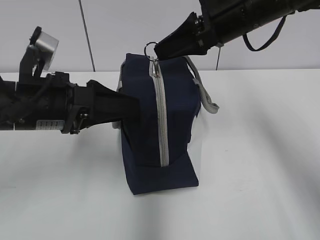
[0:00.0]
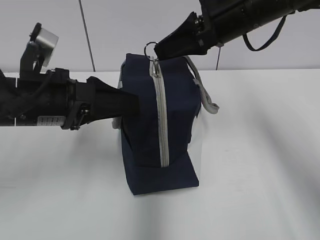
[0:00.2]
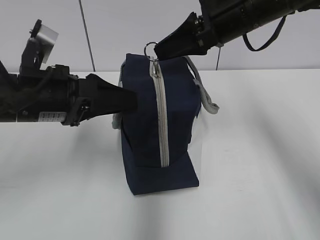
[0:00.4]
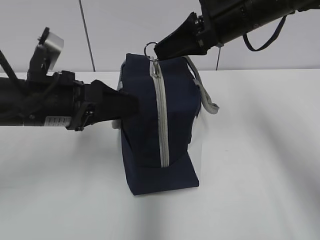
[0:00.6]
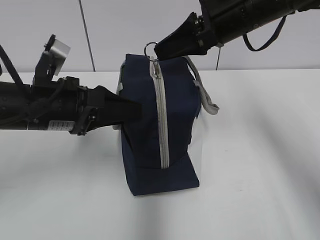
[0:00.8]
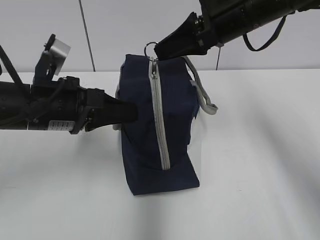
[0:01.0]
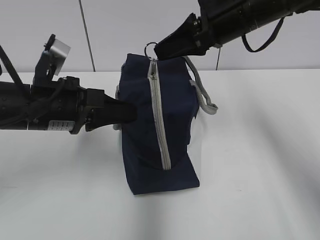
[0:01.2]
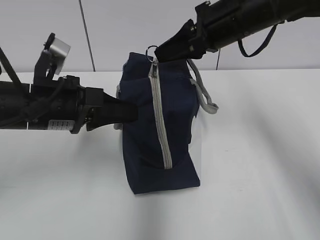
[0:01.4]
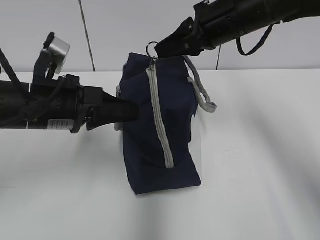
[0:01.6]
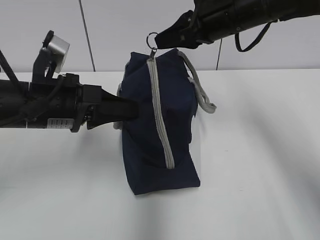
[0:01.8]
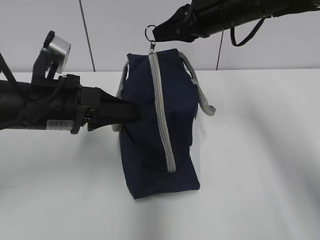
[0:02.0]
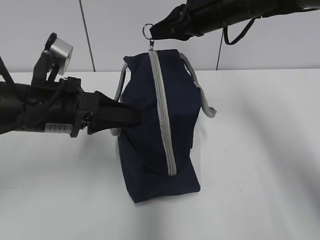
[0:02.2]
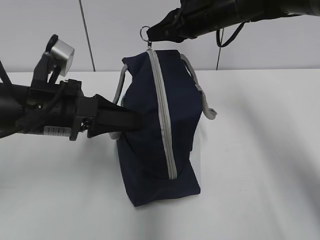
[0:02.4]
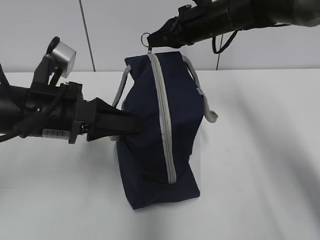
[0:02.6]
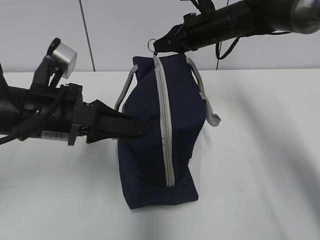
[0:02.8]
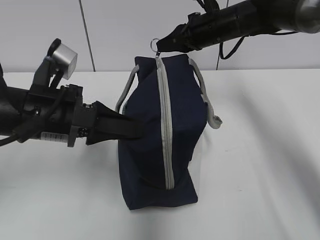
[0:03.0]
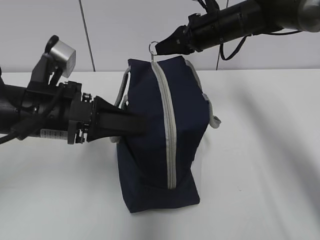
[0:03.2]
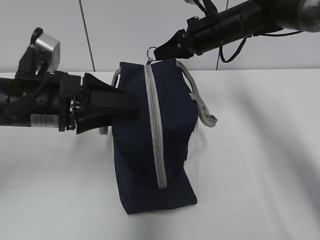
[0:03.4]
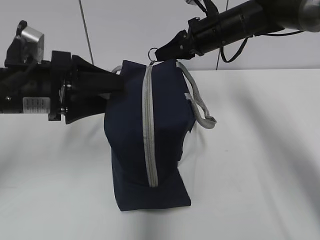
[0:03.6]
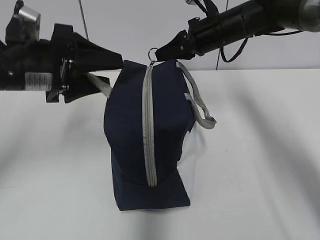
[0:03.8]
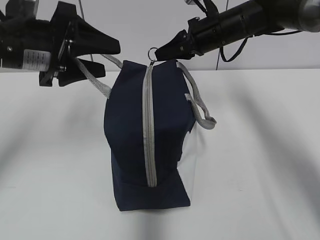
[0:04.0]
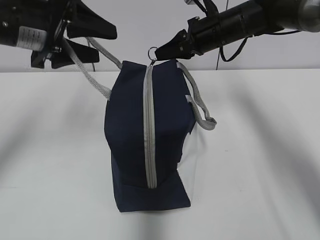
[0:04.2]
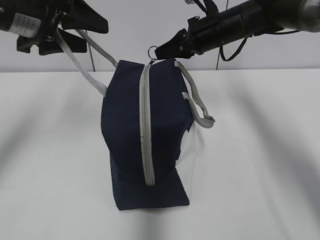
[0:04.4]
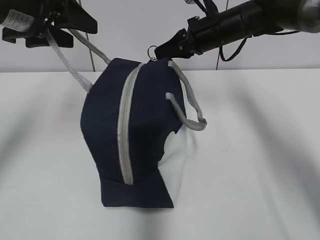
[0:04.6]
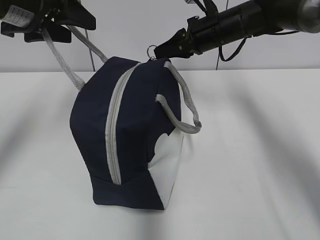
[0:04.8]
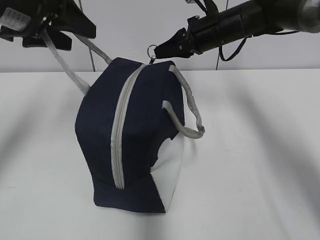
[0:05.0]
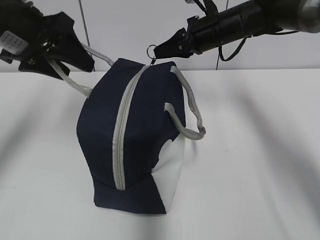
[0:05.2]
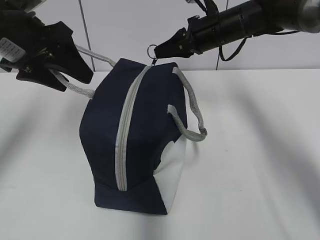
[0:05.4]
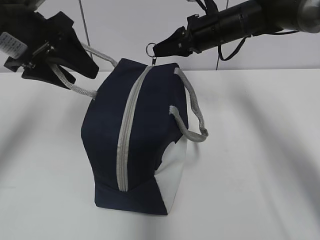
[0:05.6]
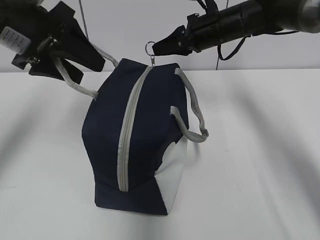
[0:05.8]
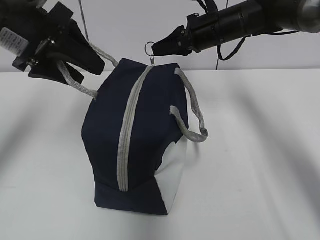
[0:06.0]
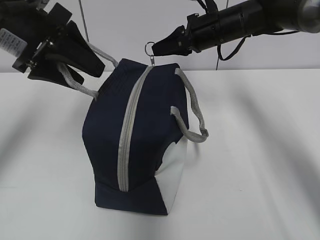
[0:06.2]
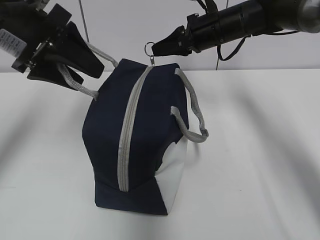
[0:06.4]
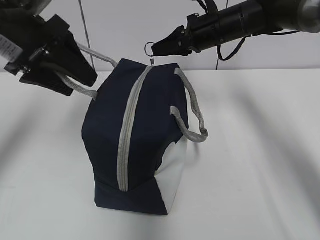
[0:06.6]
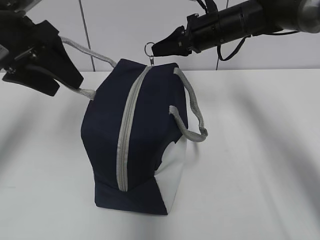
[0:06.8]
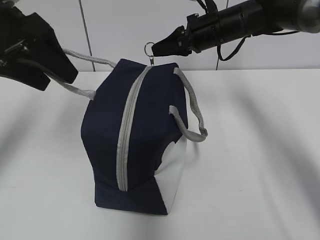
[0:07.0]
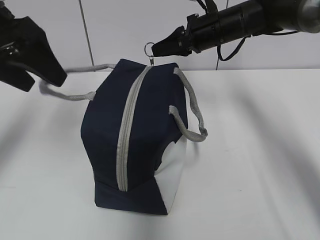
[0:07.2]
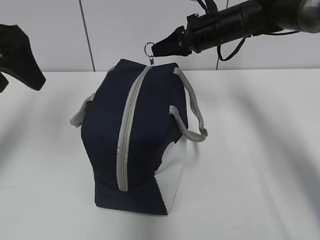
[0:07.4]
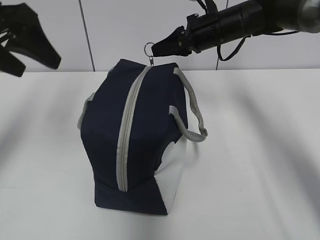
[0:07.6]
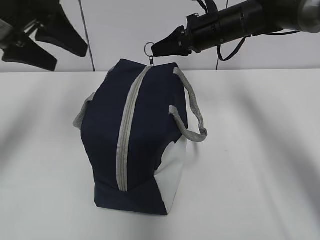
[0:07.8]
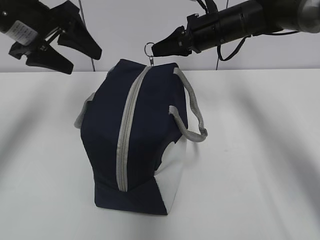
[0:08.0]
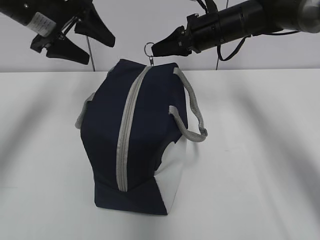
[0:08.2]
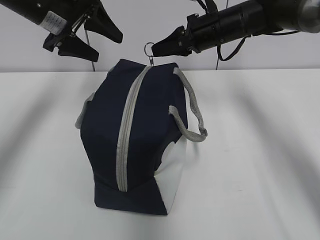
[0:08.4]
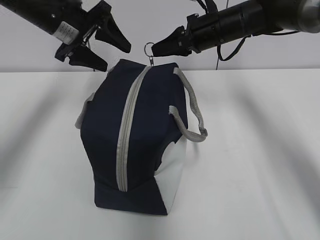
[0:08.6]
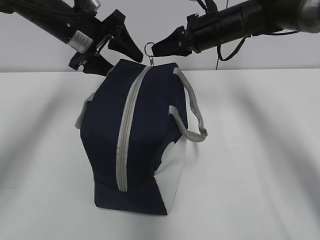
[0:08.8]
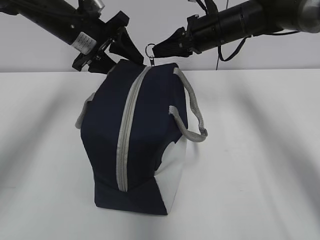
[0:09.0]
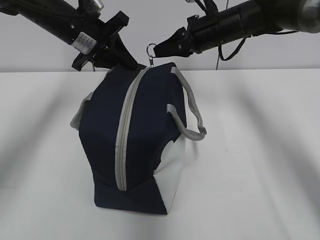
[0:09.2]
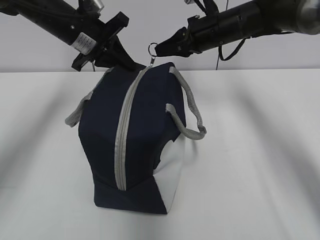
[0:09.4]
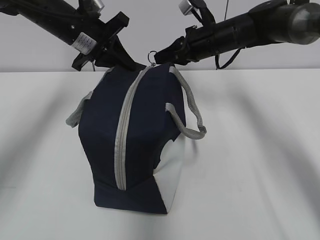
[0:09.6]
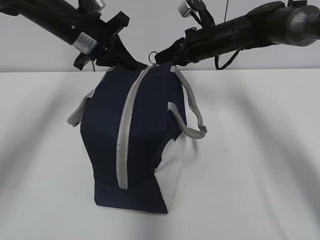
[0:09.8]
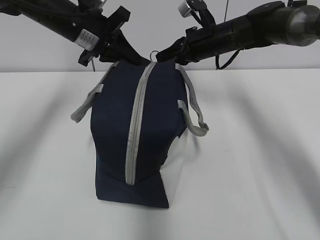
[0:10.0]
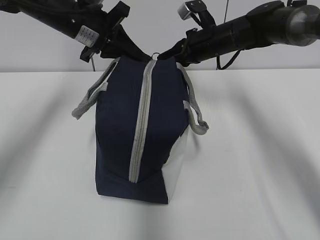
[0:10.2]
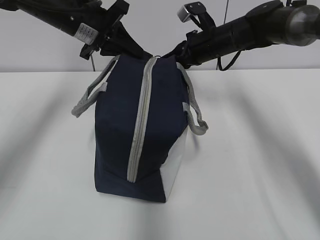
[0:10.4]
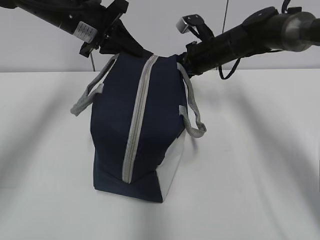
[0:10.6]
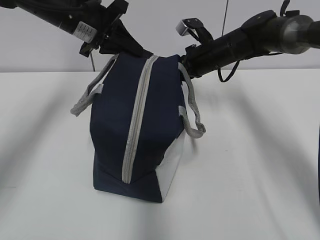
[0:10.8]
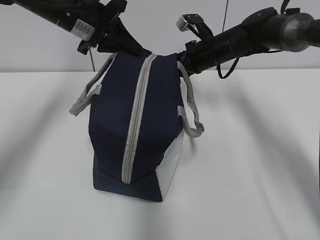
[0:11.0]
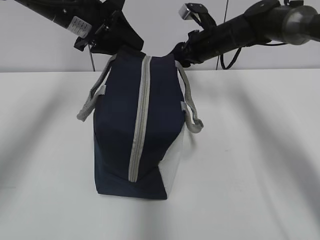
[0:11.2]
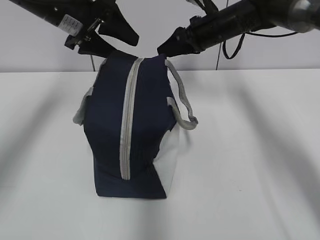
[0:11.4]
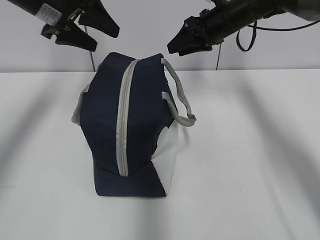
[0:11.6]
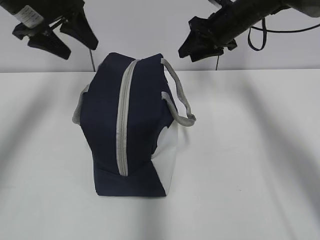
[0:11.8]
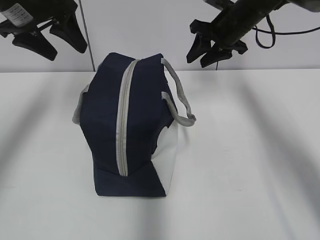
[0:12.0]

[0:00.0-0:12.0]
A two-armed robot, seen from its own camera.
0:00.0 to 0:01.6: The left gripper closes.
0:01.6 to 0:03.0: The right gripper heads forward and downward, covering about 10 cm.
0:03.0 to 0:04.4: The left gripper is displaced upward and forward by approximately 15 cm, and opens.
0:06.0 to 0:07.6: The left gripper moves about 5 cm.
0:07.6 to 0:09.0: The left gripper goes some 20 cm forward, to the right and downward.
0:09.0 to 0:10.4: The left gripper closes.
0:10.4 to 0:12.0: The left gripper moves to the left, approximately 10 cm, and opens up, while the right gripper ends up about 5 cm from where it was, and opens.

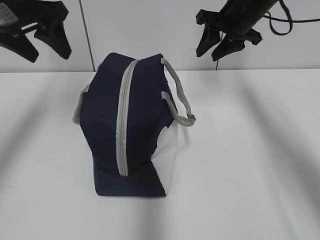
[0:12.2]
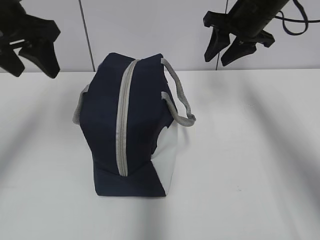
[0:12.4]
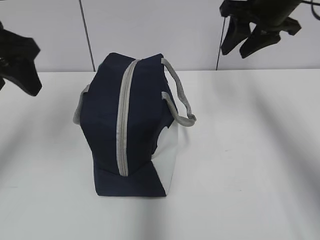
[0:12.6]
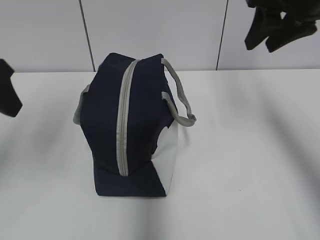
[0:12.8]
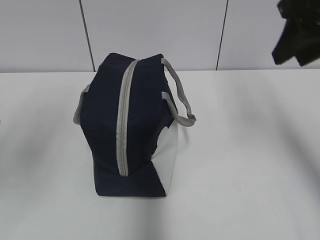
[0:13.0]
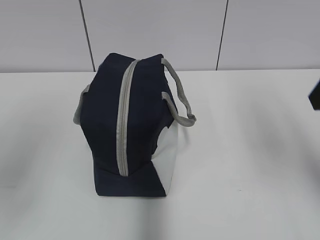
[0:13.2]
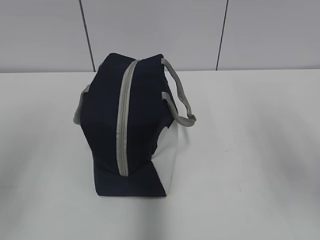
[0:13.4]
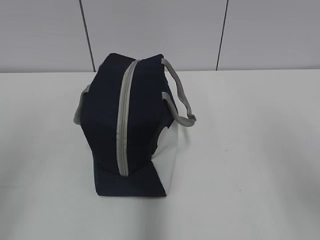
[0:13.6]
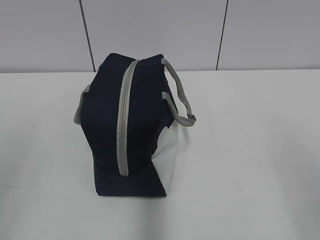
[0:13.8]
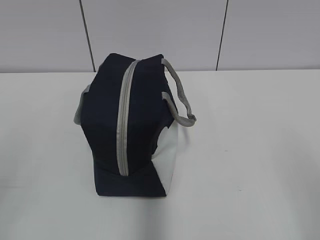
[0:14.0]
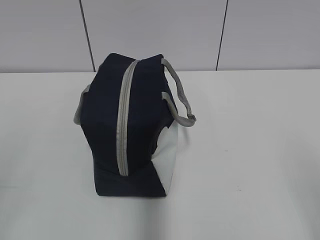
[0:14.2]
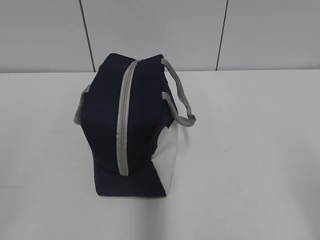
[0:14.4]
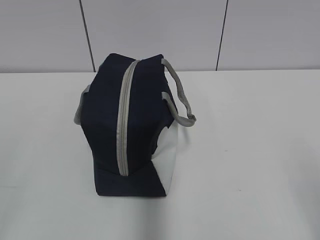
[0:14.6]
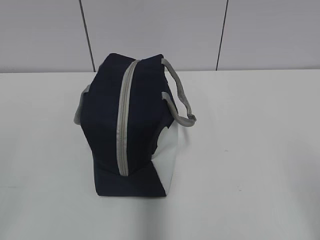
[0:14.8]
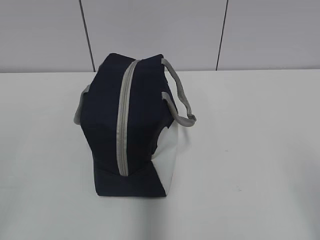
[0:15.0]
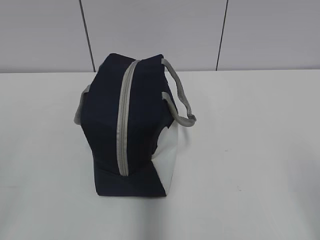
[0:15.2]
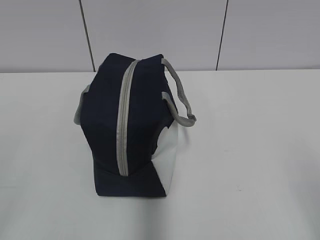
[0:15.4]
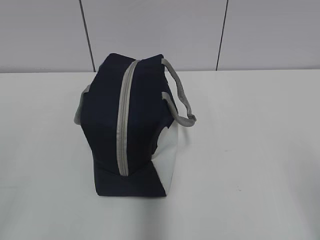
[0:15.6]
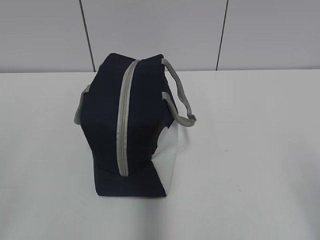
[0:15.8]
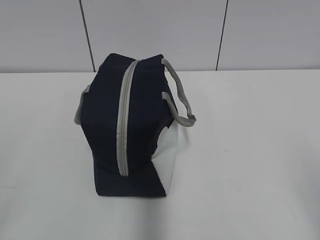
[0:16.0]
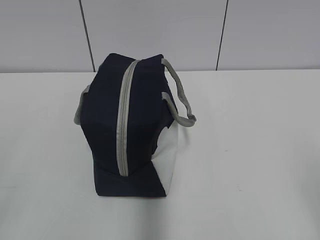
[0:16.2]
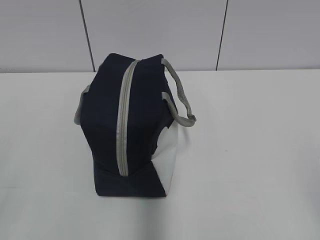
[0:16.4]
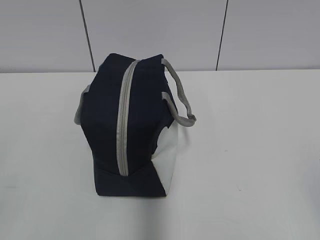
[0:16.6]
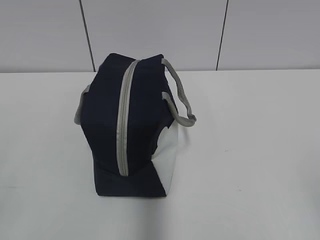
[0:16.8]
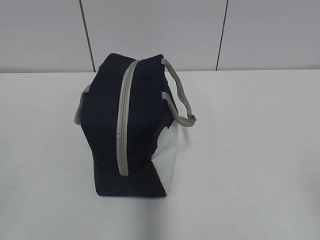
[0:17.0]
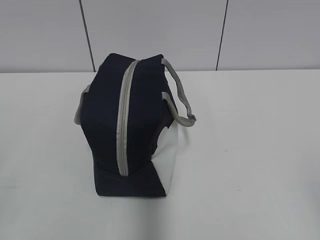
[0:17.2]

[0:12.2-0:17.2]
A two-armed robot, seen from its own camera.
0:12.2 to 0:13.8: Both grippers travel together backward, about 35 cm.

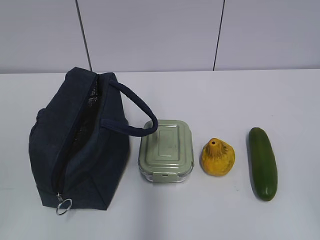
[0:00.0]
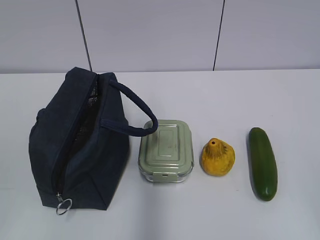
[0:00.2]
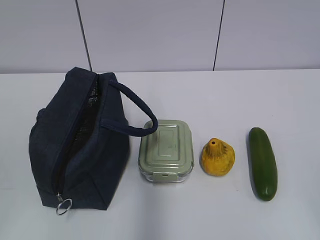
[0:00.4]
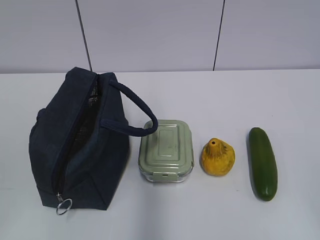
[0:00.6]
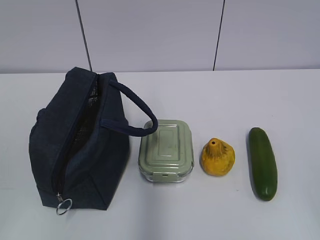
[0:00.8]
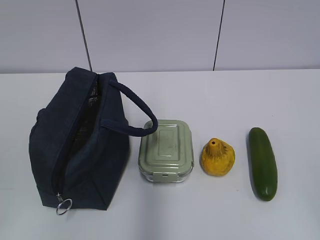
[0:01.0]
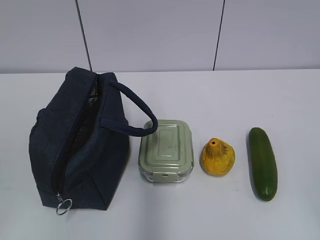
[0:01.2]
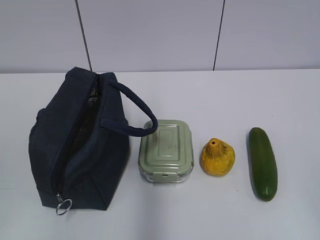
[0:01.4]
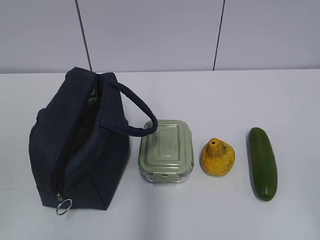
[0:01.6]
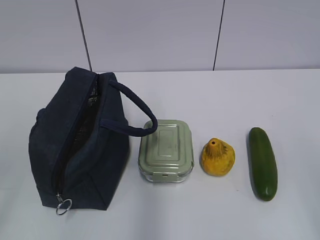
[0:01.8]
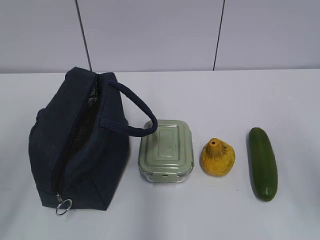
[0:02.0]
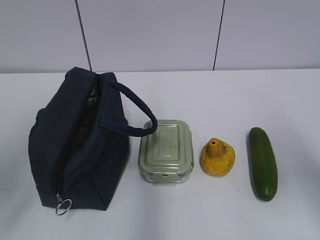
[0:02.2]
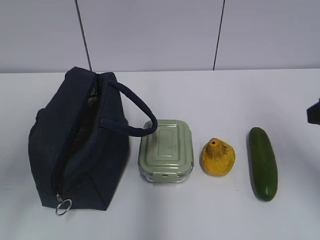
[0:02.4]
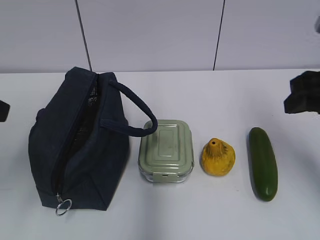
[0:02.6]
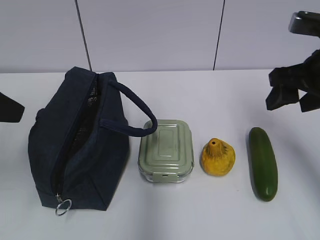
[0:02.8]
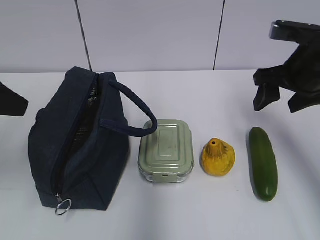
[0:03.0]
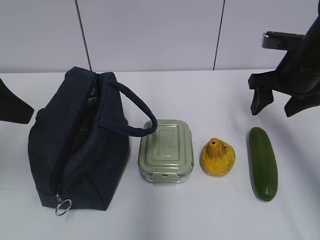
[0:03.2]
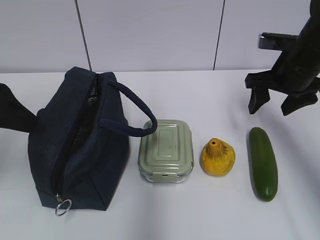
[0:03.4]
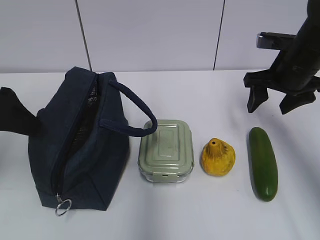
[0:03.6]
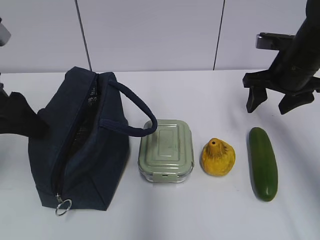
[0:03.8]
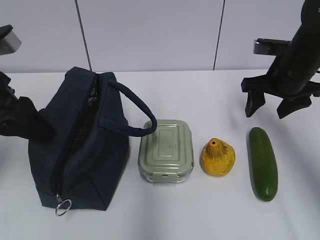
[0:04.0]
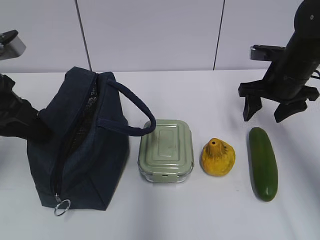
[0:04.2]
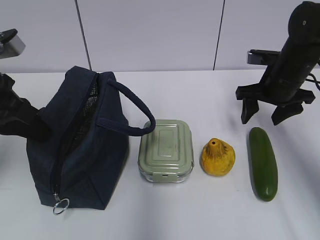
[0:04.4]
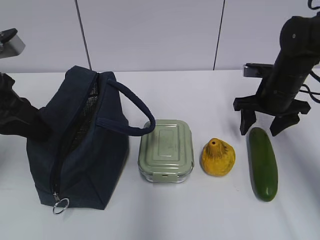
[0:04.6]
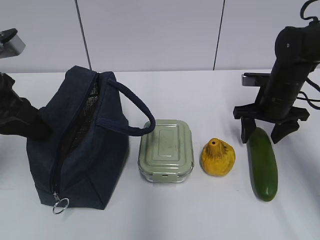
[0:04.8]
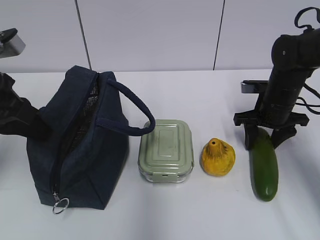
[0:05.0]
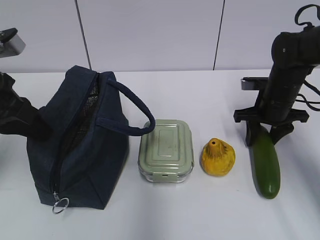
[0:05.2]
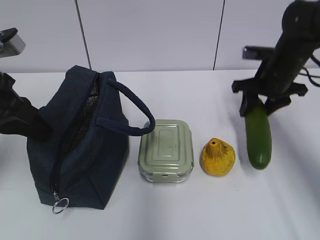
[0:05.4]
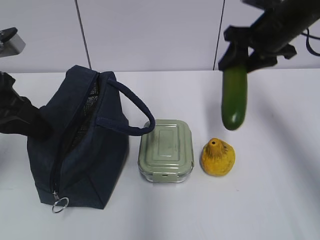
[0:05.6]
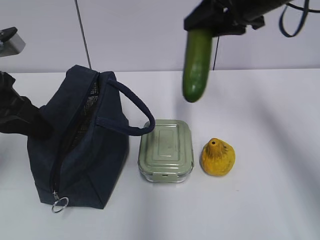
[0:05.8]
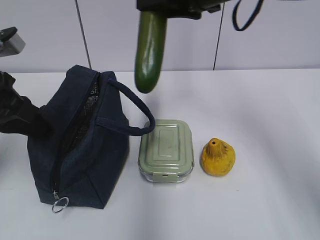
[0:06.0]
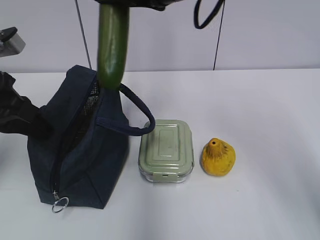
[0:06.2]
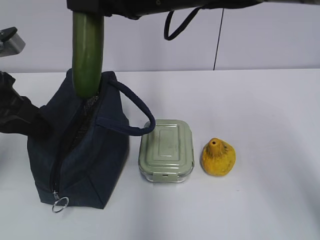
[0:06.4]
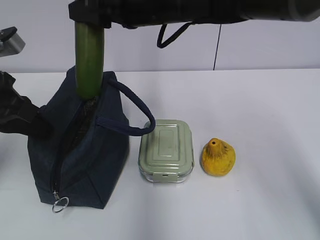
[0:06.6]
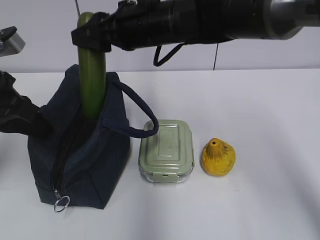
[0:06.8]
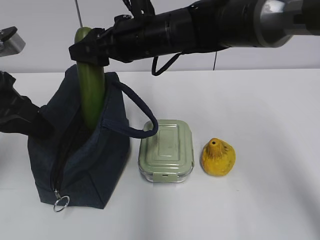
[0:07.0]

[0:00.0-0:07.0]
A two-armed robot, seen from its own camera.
Step, 0:00.0 to 0:04.2: Grab the lunch bag with your left hand.
Step, 0:04.4 to 0:05.0: Grab the cucumber with your right hand.
0:01.4 to 0:02.8: The right gripper moves forward, roughly 30 cm, while the left gripper moves forward, roughly 20 cm.
0:02.8 to 0:04.2: The right gripper travels forward and downward by roughly 10 cm. The left gripper heads downward and forward, covering about 10 cm, and closes its fingers.
0:04.2 to 0:05.6: The right gripper goes approximately 10 cm upward.
0:05.6 to 0:07.0: The right gripper travels to the left by approximately 20 cm.
